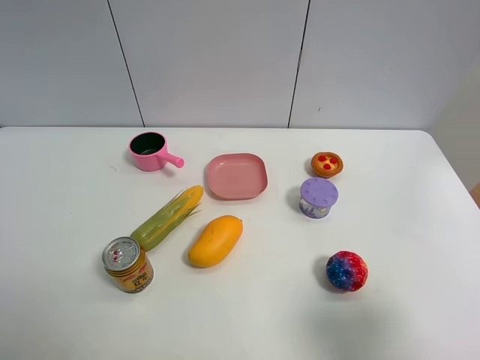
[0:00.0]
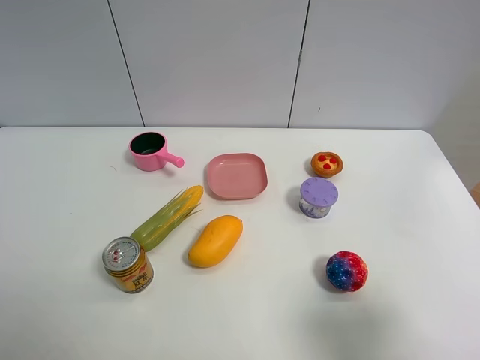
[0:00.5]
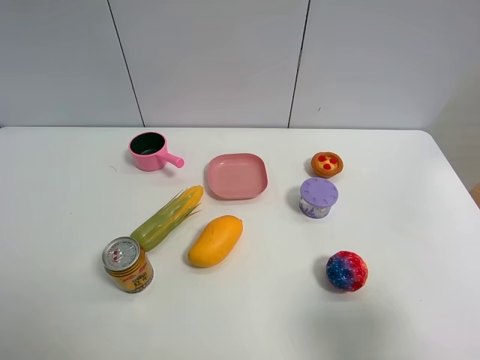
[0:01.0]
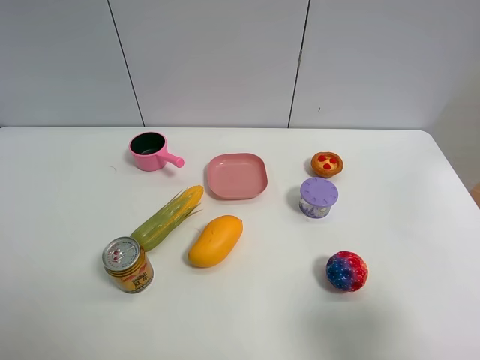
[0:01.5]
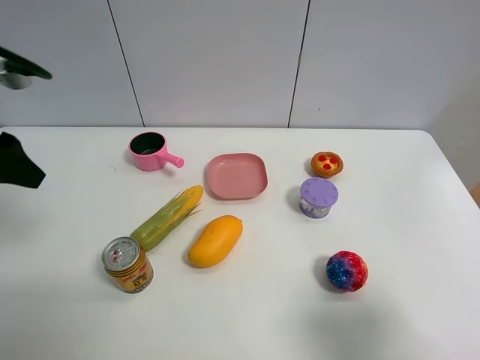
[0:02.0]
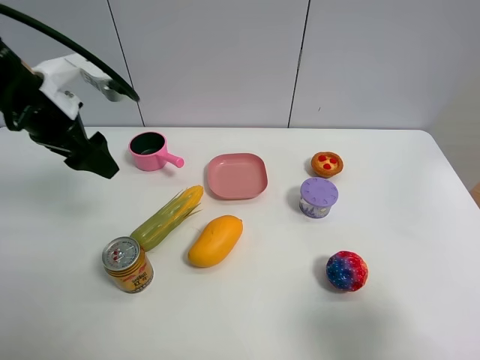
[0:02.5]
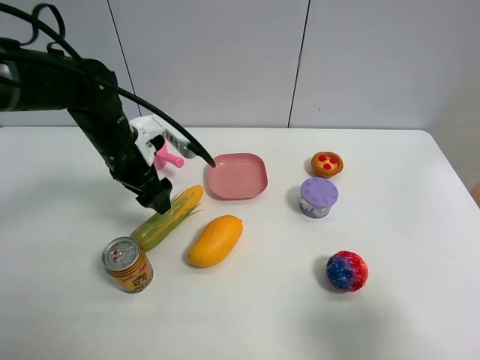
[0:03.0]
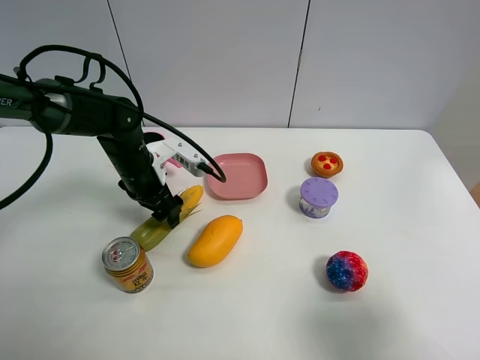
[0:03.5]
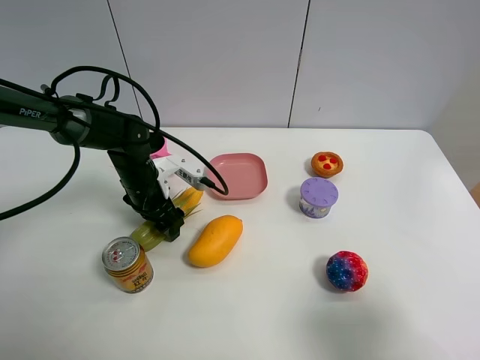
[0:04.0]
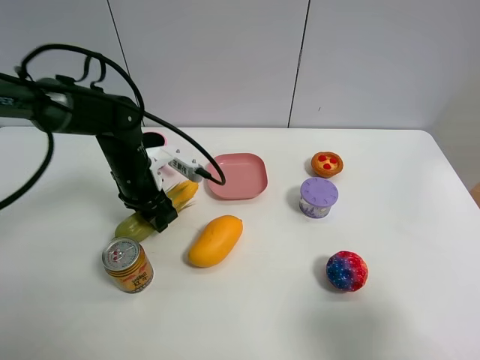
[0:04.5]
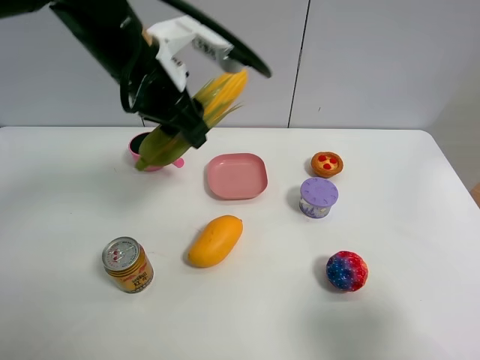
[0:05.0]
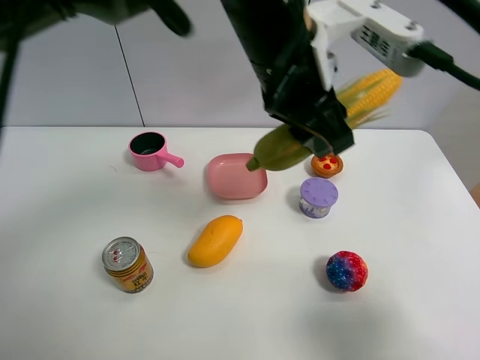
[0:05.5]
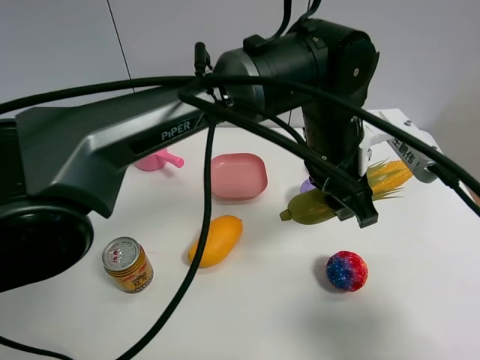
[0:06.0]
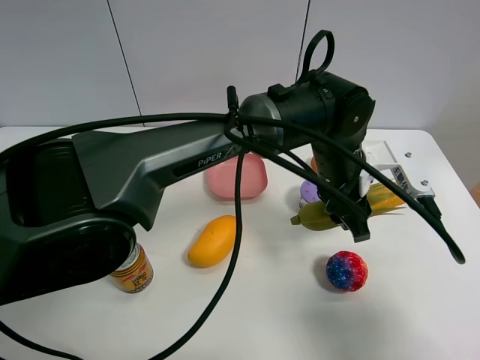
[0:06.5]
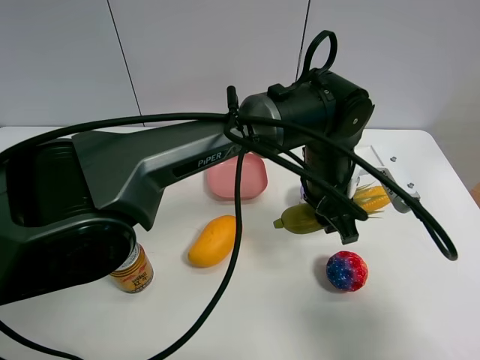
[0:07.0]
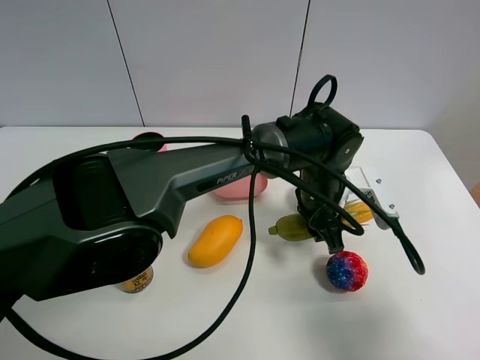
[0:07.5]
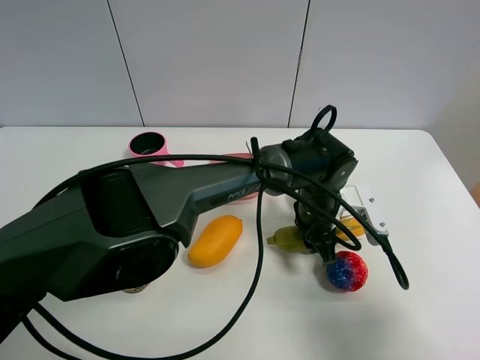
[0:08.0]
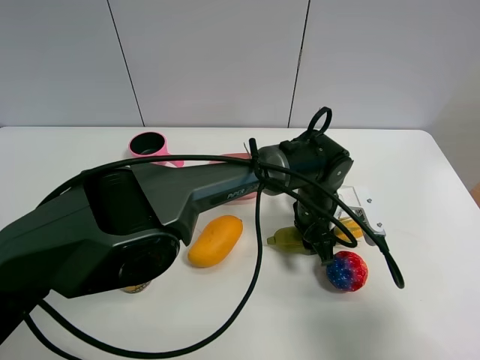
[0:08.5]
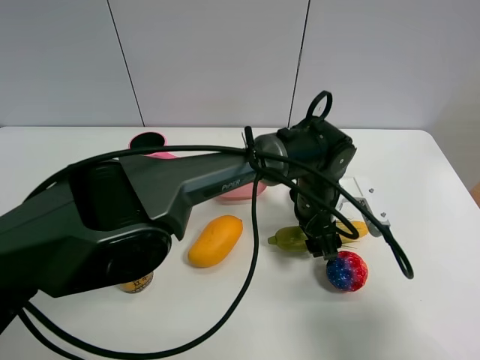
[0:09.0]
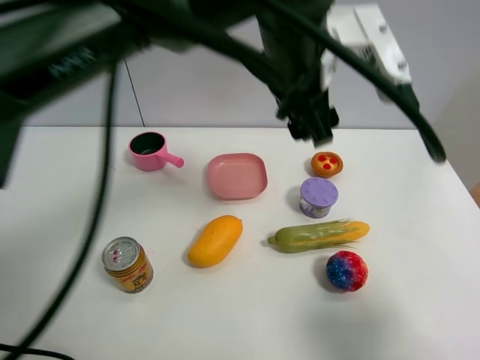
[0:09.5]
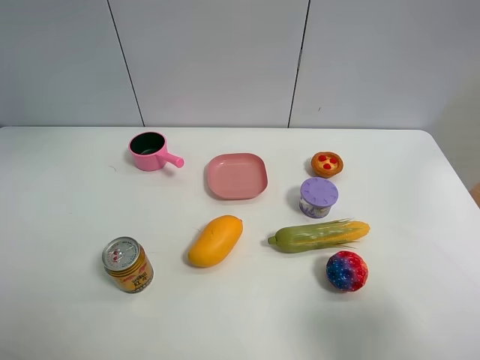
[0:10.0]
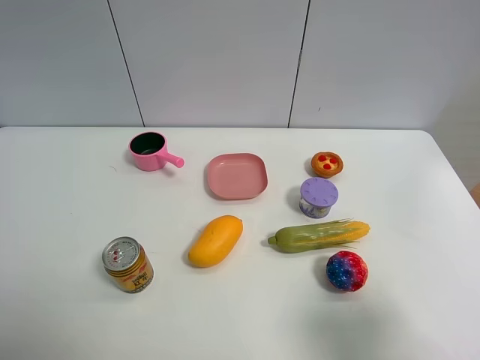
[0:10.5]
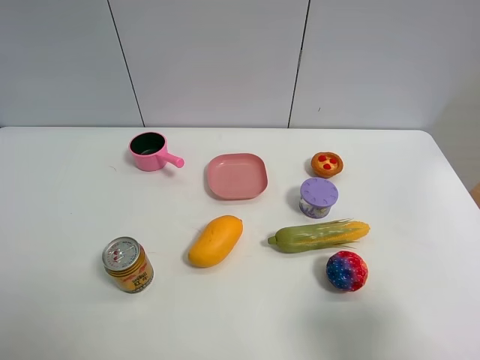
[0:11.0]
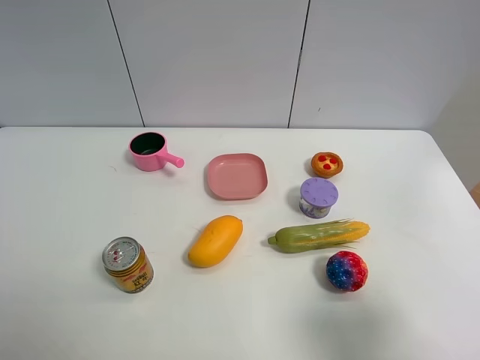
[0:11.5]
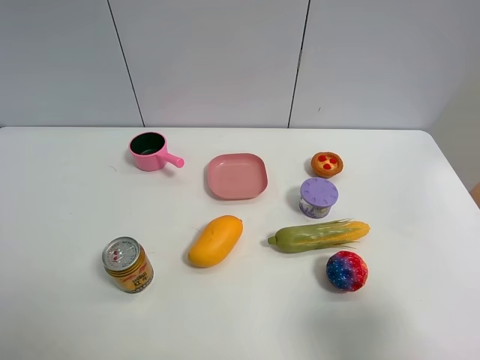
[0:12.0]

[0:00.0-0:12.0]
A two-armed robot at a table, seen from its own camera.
Task of the whole recording: the gripper move the object.
Step, 0:00.0 to 0:04.0: Grasp the corn with the left gripper.
Step, 0:04.5 to 0:08.5: Place the corn on the table with the left gripper.
0:00.0 to 0:02.0: The left gripper moves forward, about 25 cm.
0:02.0 to 0:04.0: The left gripper travels downward, to the right and forward by approximately 30 cm.
0:04.0 to 0:06.0: The left gripper moves to the right and upward, approximately 30 cm, and closes its fingers.
0:06.0 to 0:08.0: The left gripper travels downward by about 15 cm.
0:08.0 to 0:10.0: The left gripper moves upward and to the left, some 60 cm, and opens up.
0:10.0 to 0:12.0: The left gripper shifts roughly 40 cm backward and downward.

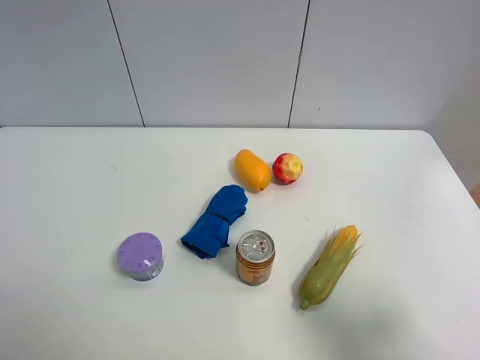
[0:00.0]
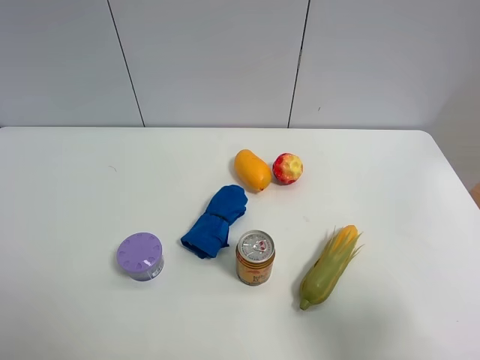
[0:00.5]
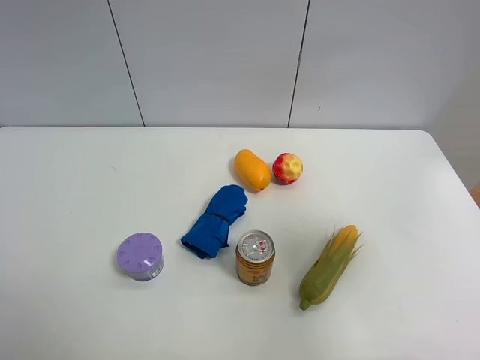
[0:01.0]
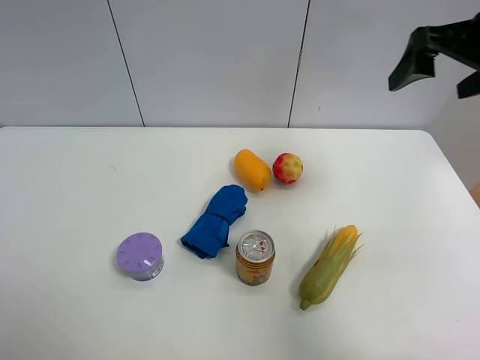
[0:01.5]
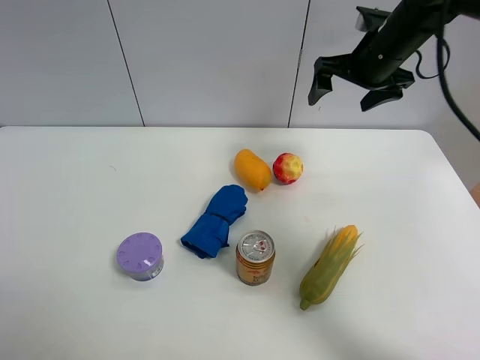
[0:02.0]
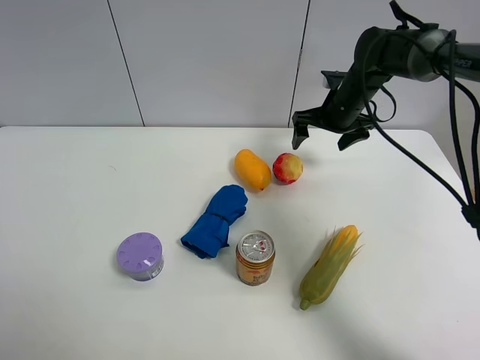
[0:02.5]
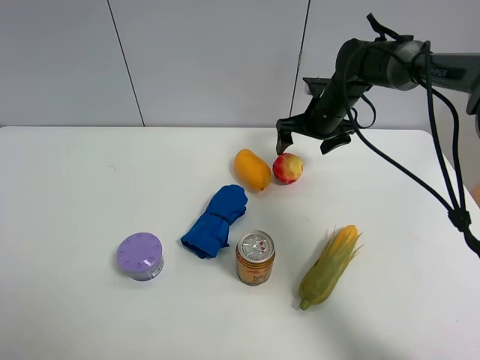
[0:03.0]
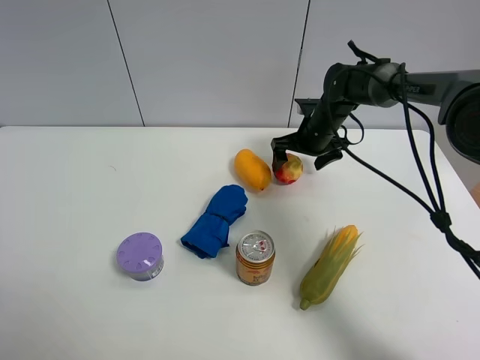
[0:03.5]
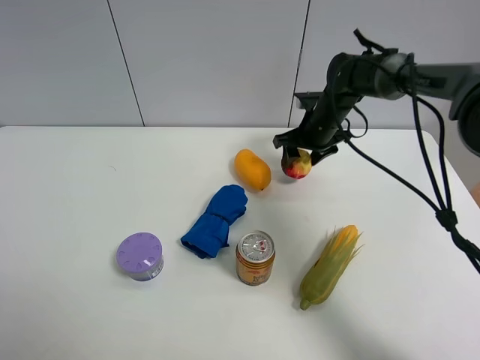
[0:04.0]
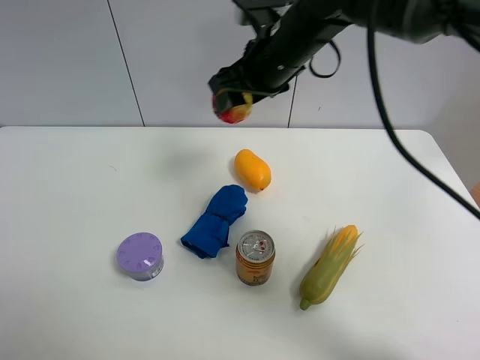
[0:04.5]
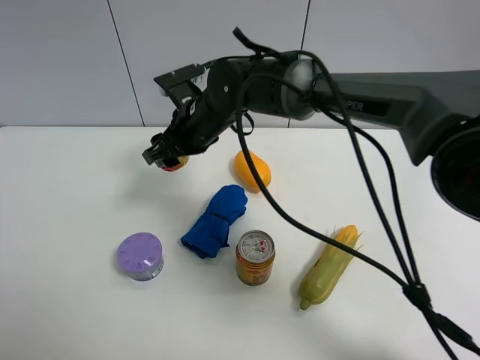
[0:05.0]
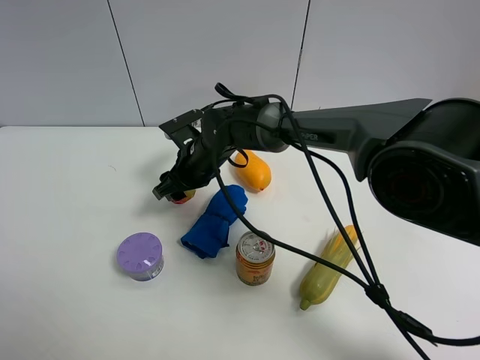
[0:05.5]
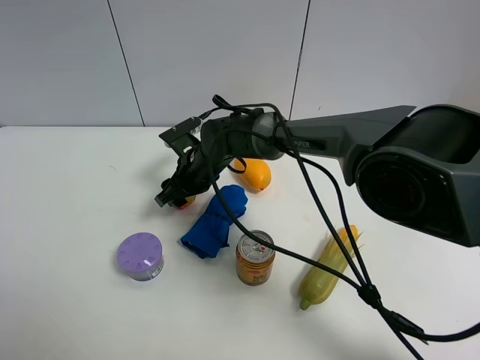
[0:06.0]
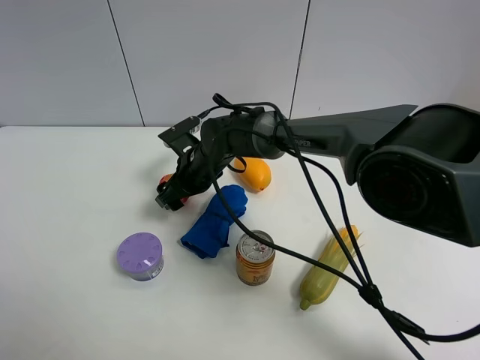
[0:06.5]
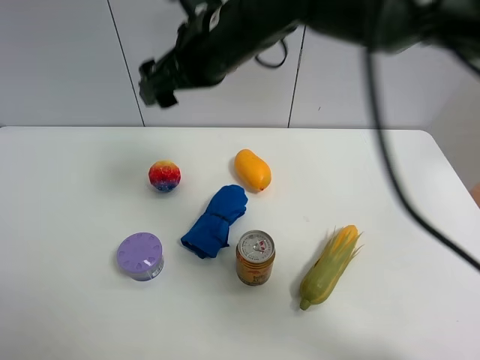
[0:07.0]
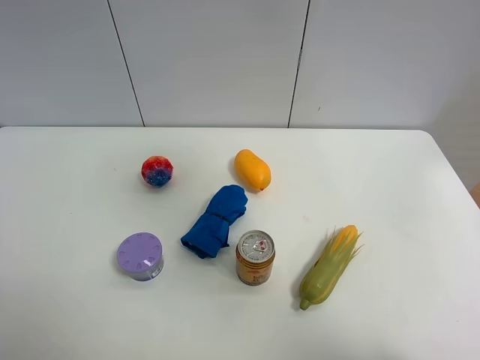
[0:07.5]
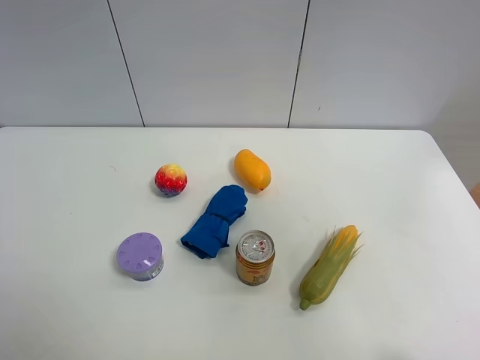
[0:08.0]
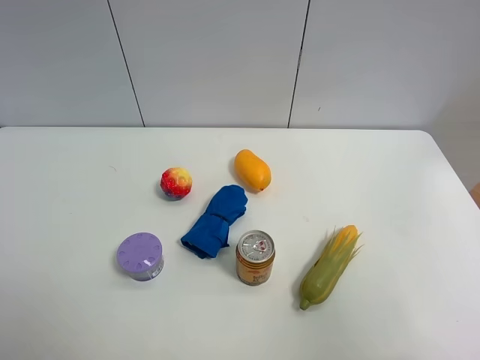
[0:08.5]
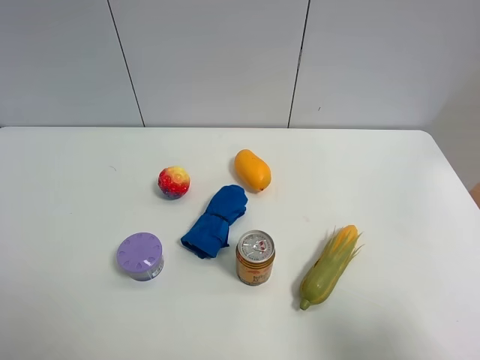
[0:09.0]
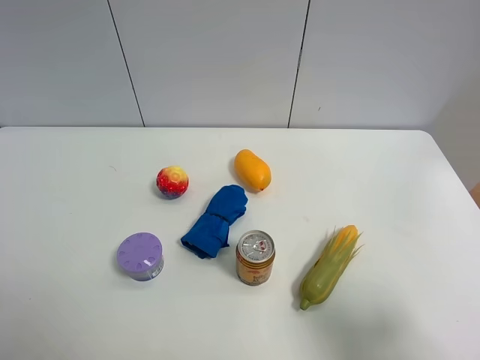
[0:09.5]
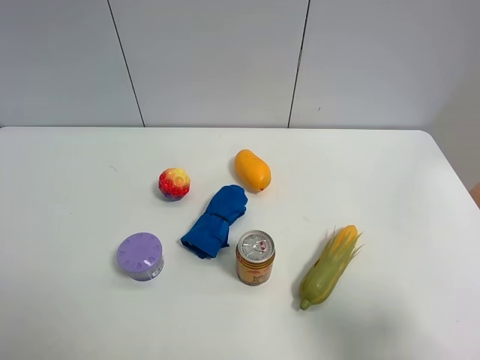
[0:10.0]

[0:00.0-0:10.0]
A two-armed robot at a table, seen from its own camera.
Task of the whole recording: the gripper move the object.
Step, 0:00.0 to 0:03.5: Grasp the colorful ball with the right gripper.
Step, 0:04.0 to 0:06.0: Place the colorful ball on the table with the right gripper.
0:00.0 to 0:02.0: The right gripper heads forward, covering some 40 cm.
0:02.0 to 0:04.0: The right gripper moves downward, approximately 10 cm, and closes.
0:04.0 to 0:06.0: The right gripper heads to the left, covering some 20 cm.
0:06.0 to 0:08.0: The right gripper is displaced upward, to the right and backward by approximately 70 cm, and opens.
0:08.0 to 0:10.0: The right gripper heads downward, covering some 30 cm.

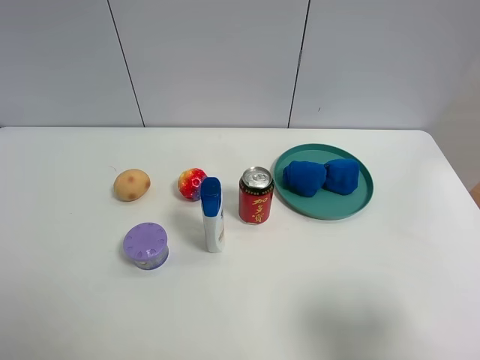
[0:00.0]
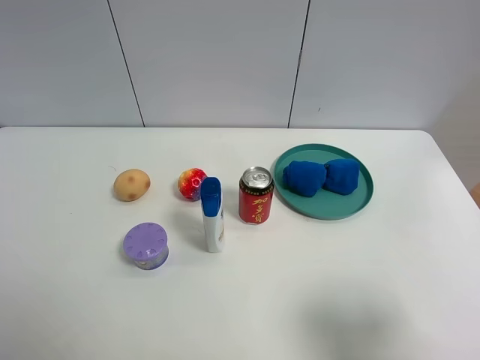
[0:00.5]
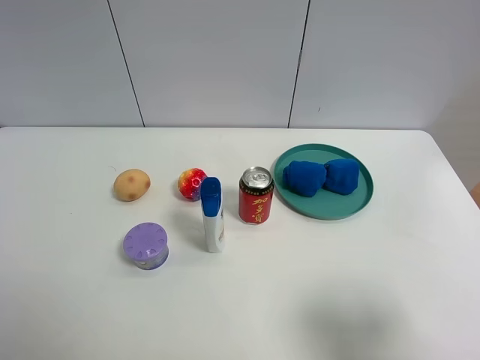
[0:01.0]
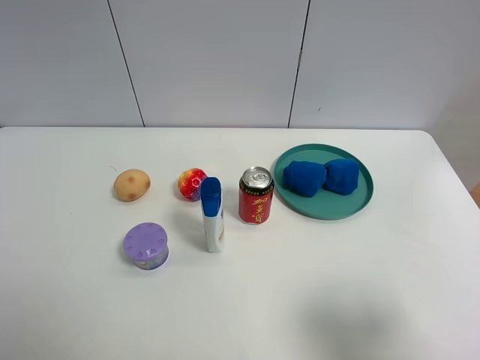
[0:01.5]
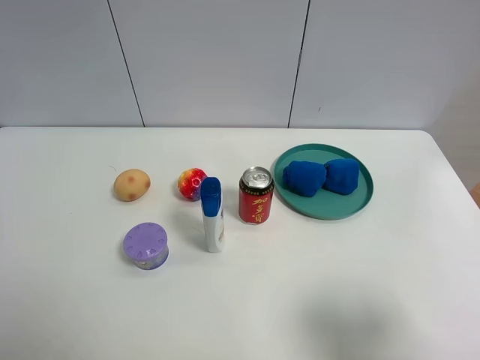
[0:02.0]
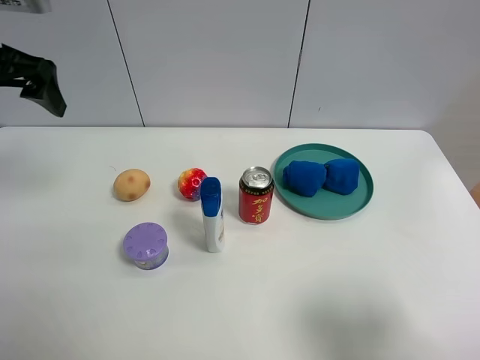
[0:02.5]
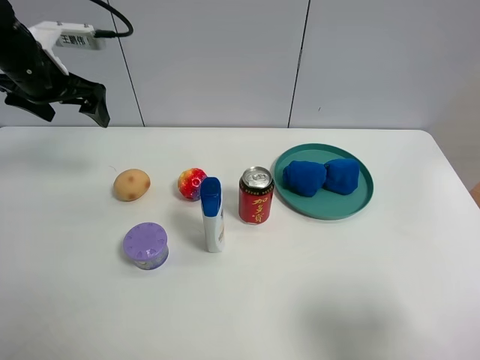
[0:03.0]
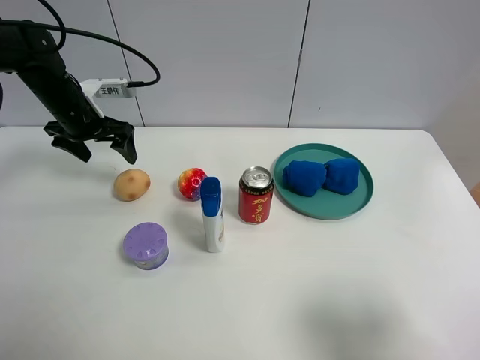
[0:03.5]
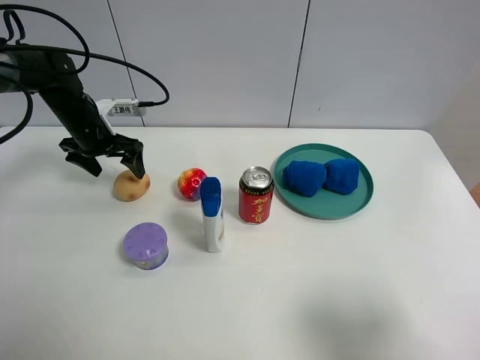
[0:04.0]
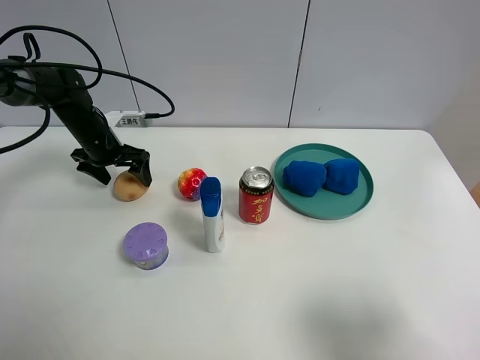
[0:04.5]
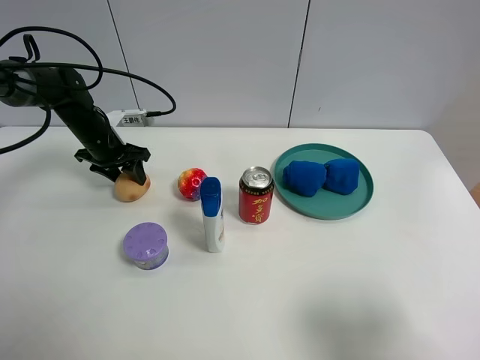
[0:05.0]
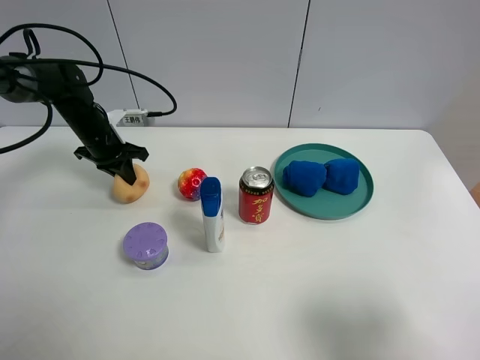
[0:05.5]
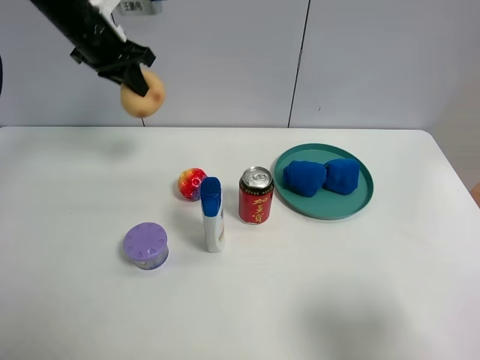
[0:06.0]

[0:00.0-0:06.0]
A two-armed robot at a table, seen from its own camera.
Task of the whole recording: the gripper move the object.
Step, 0:00.0 to 0:05.0: Grasp the egg yolk pastry with the left gripper.
0:02.0 to 0:04.0: The left gripper goes about 40 cm forward and downward.
0:04.0 to 0:06.0: The left gripper shifts some 15 cm upward, and closes.
